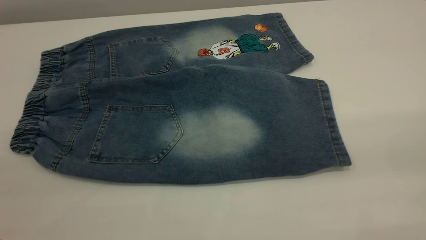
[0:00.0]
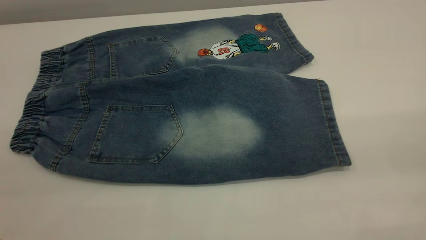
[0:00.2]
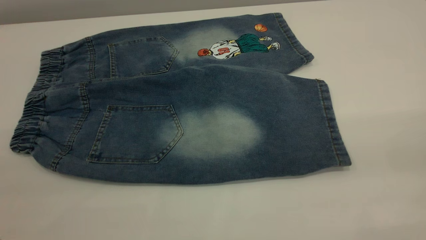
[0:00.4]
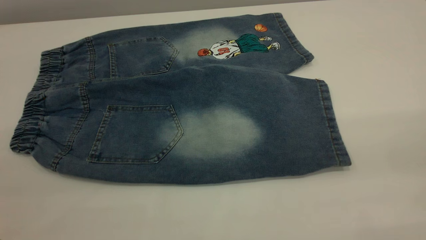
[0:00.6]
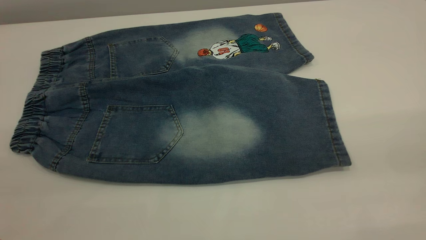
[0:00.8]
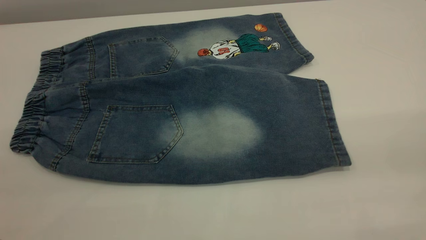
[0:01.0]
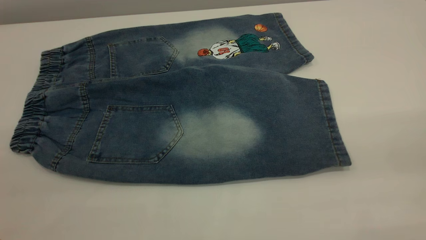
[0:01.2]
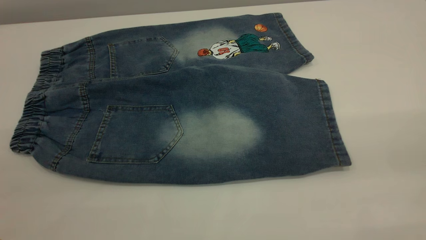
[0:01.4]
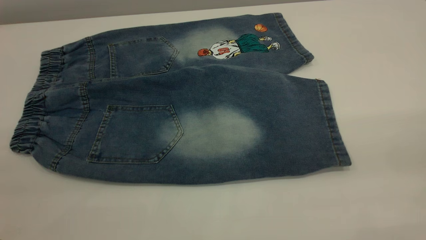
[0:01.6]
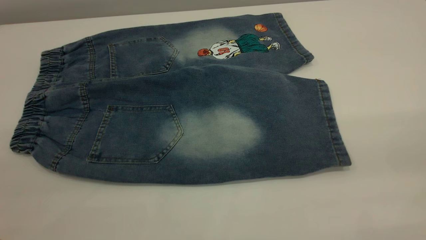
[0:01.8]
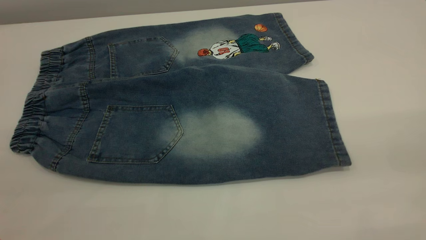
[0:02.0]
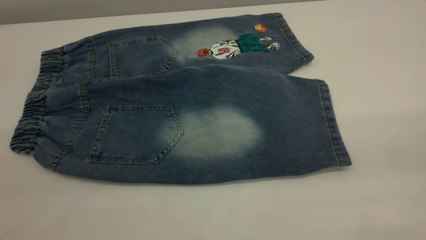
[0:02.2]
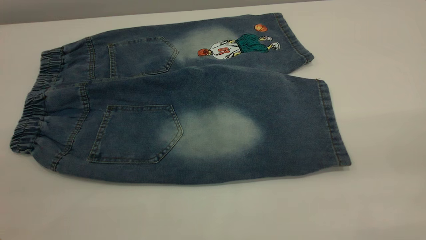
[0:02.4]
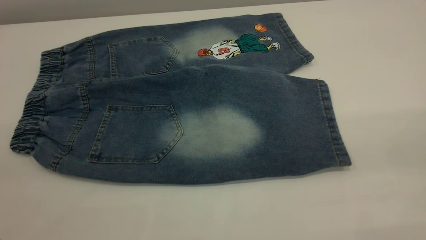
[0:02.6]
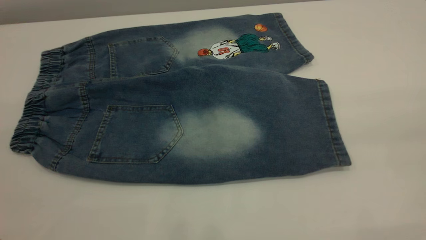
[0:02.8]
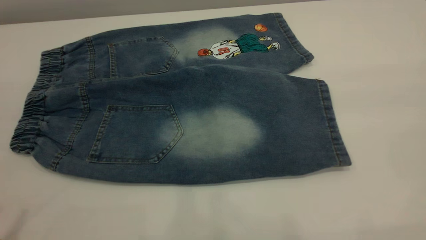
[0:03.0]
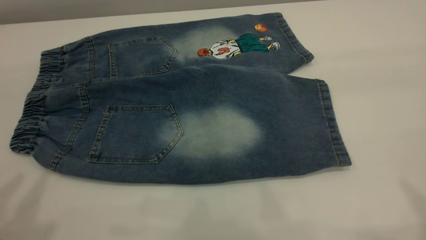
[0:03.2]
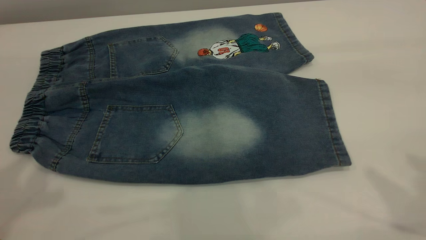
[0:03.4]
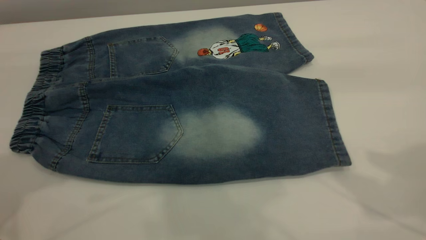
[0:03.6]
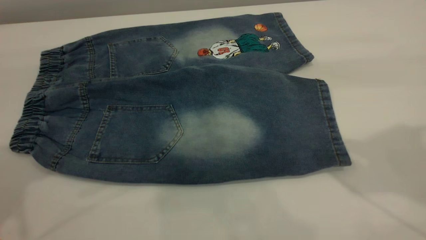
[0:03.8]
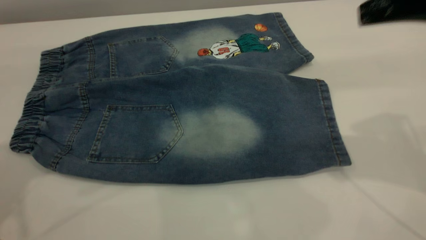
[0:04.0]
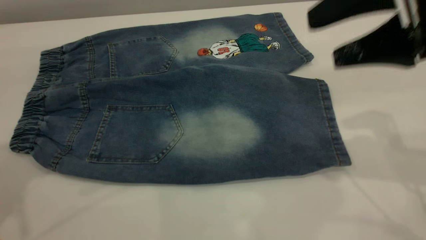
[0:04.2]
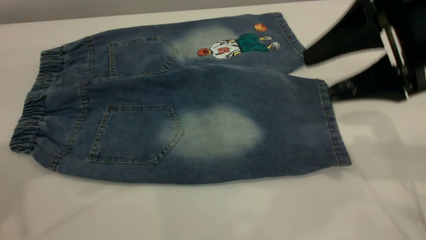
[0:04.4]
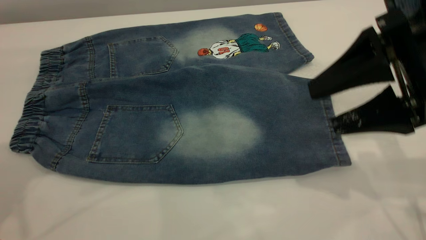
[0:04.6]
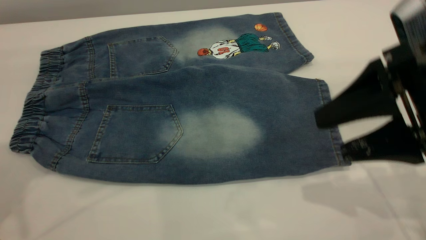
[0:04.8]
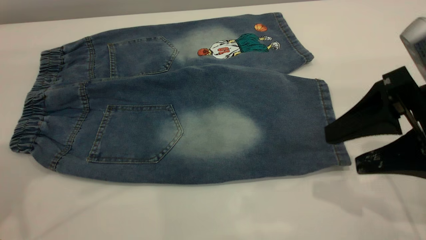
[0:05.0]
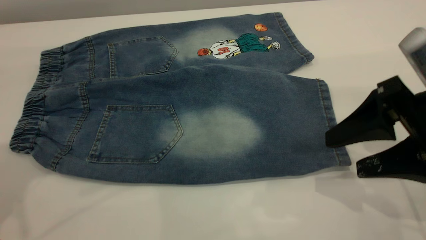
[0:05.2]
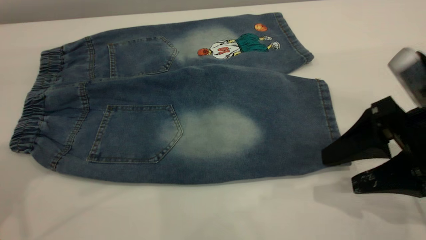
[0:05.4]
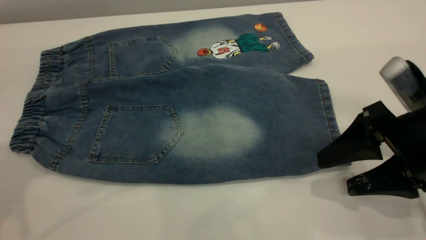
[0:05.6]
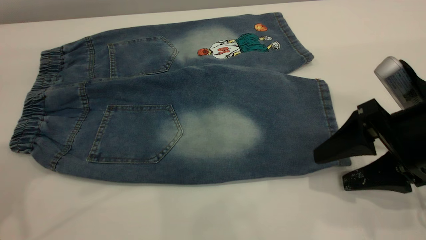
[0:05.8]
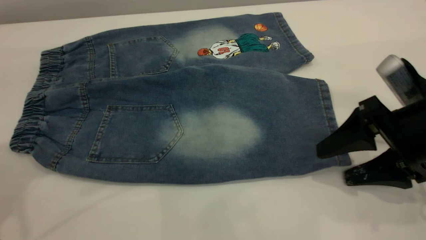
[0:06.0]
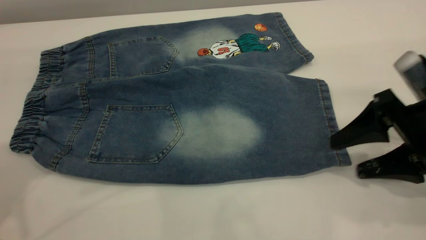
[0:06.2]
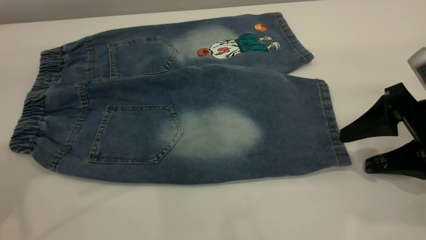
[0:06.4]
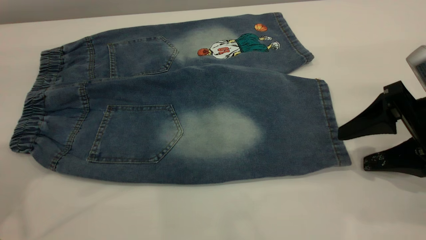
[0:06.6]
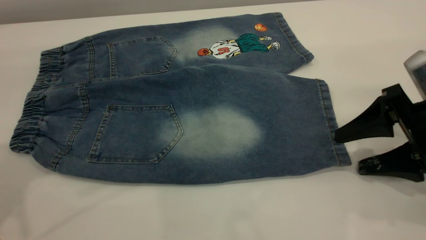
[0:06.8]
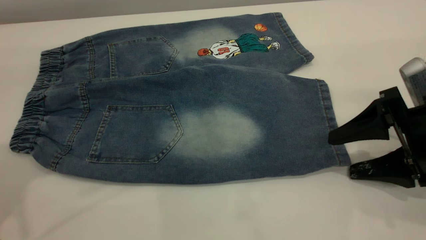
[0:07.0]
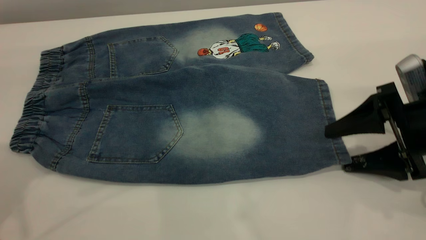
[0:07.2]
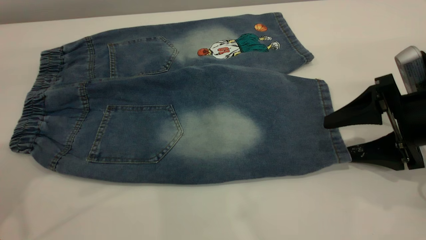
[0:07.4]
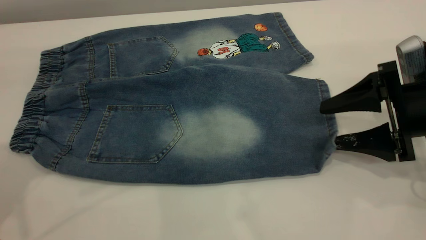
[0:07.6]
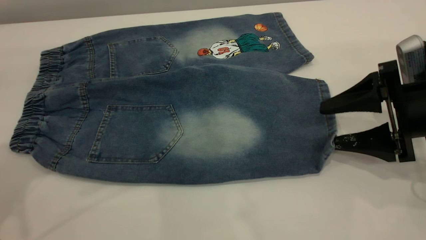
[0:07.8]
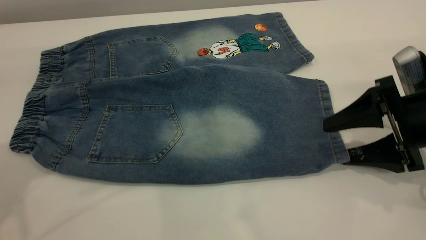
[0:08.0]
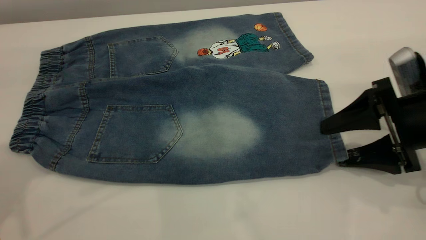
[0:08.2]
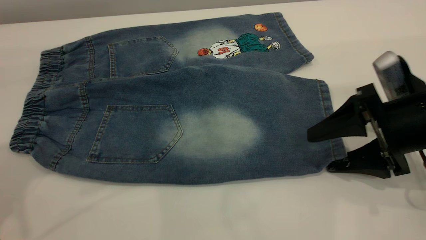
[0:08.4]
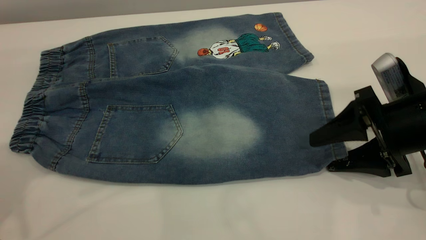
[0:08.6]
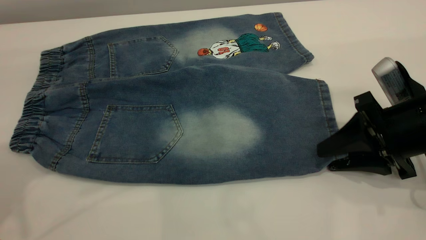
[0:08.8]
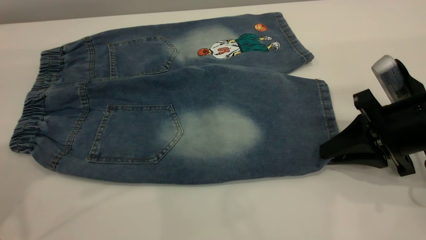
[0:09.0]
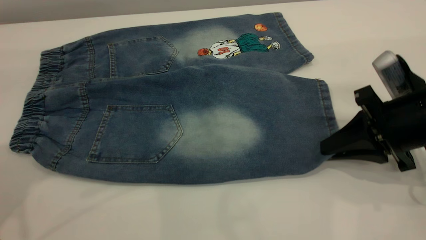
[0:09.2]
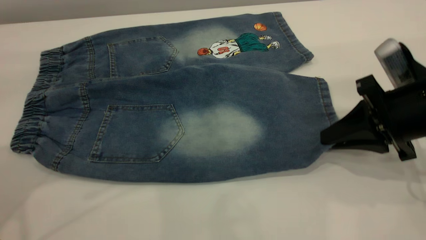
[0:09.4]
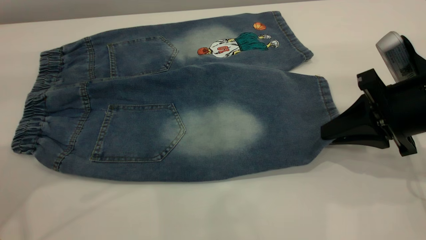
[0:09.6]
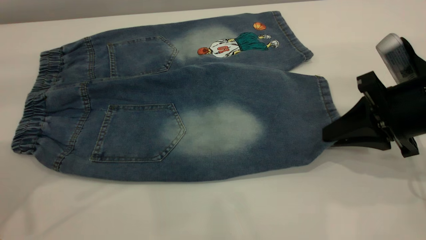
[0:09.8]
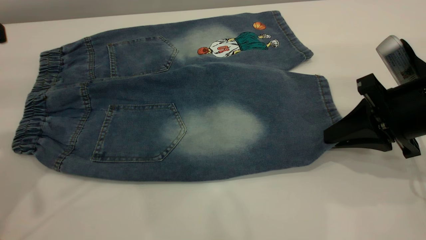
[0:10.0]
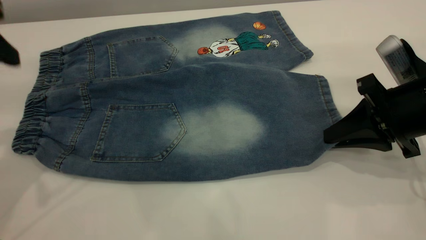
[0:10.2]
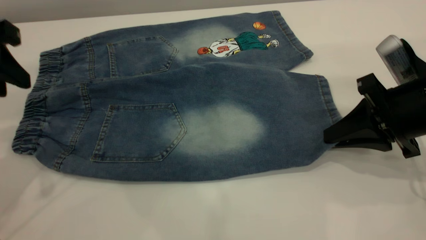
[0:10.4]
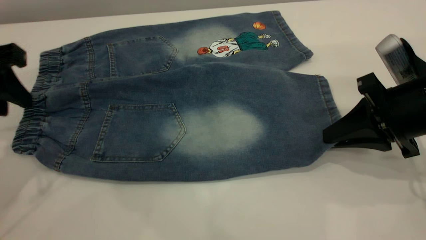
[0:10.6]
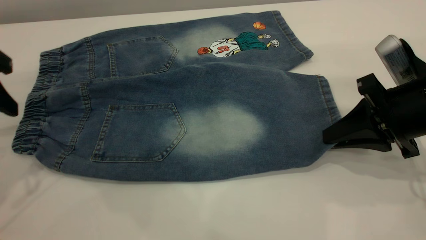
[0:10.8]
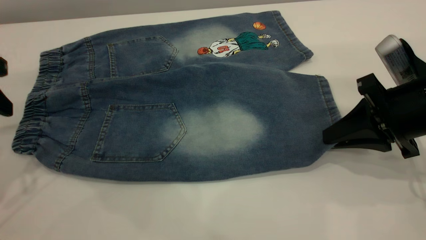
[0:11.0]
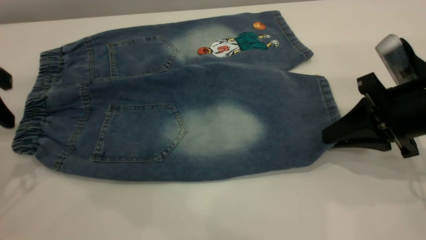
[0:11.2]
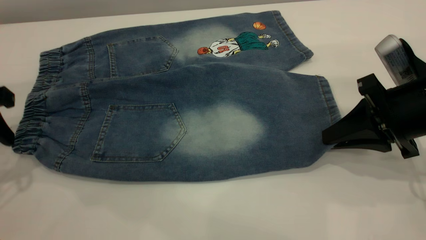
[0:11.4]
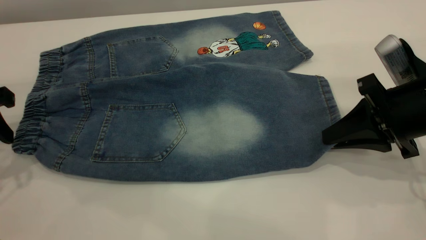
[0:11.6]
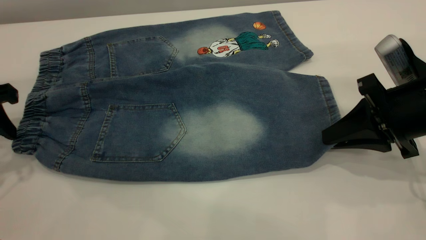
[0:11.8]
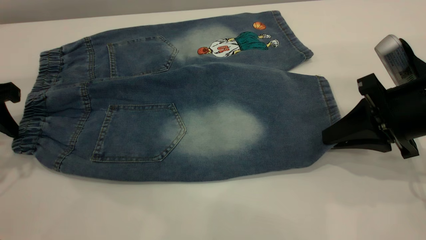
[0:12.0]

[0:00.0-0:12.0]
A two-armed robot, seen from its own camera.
0:00.0 to 0:01.6: The two grippers keep their place.
0:03.0 to 0:04.4: The right gripper goes about 25 cm downward and forward.
0:04.4 to 0:06.0: The right gripper goes some 10 cm downward.
0:06.0 to 0:07.6: The grippers make only small movements.
0:07.6 to 0:09.0: The right gripper closes.
0:09.0 to 0:10.4: The left gripper heads downward, covering about 10 cm.
0:10.4 to 0:12.0: The left gripper is displaced downward and to the left by roughly 10 cm.

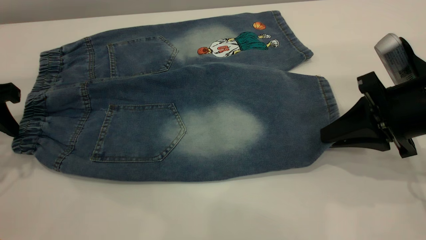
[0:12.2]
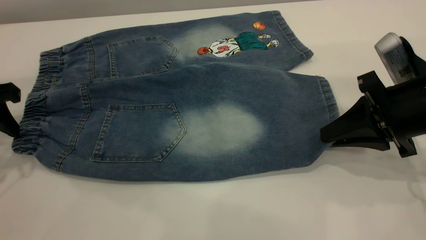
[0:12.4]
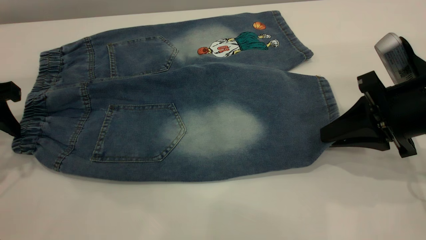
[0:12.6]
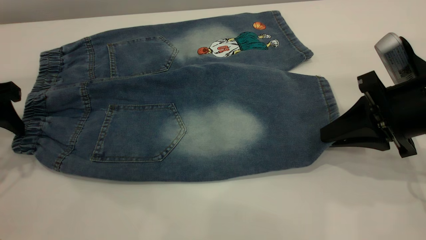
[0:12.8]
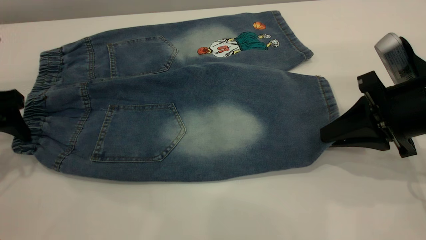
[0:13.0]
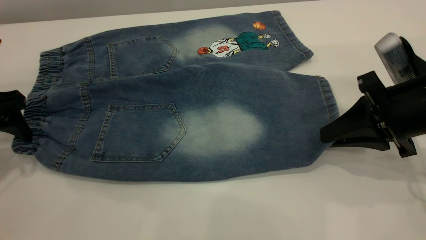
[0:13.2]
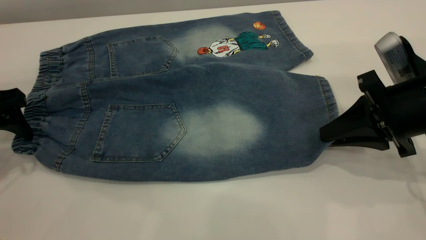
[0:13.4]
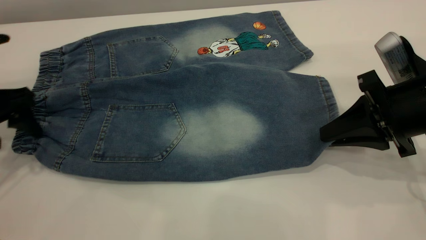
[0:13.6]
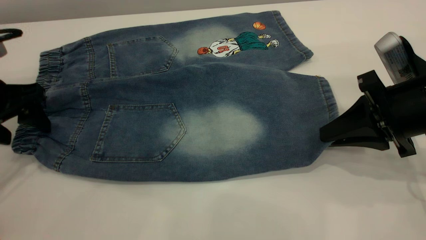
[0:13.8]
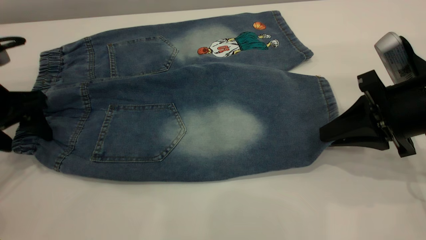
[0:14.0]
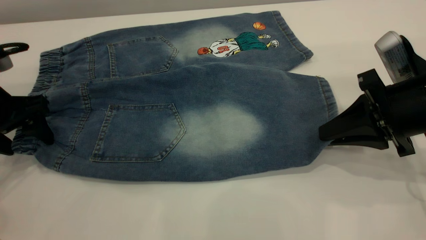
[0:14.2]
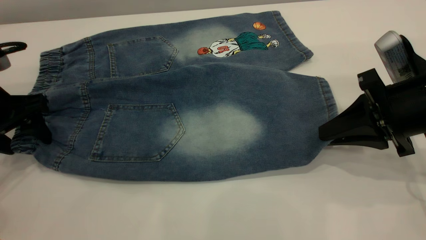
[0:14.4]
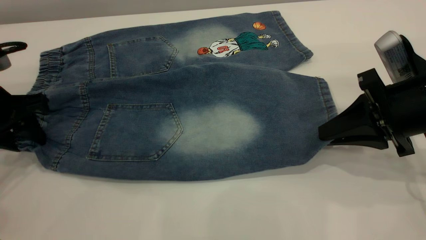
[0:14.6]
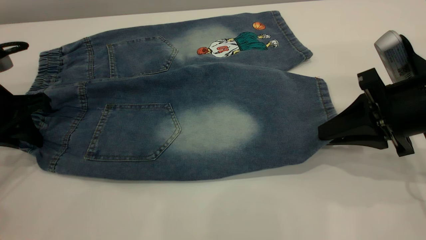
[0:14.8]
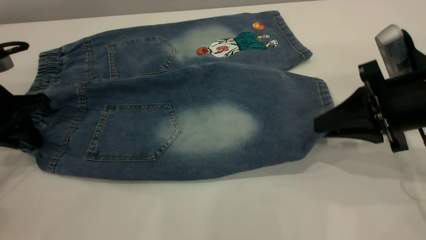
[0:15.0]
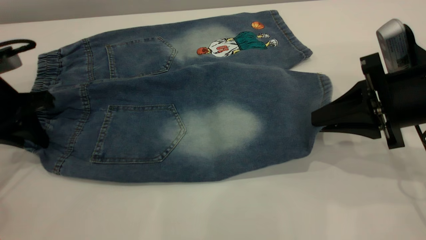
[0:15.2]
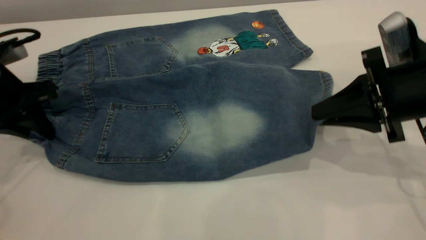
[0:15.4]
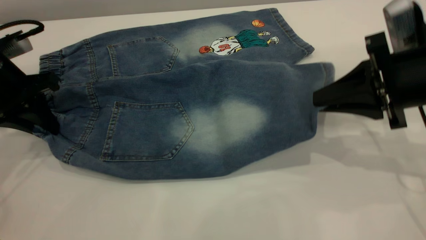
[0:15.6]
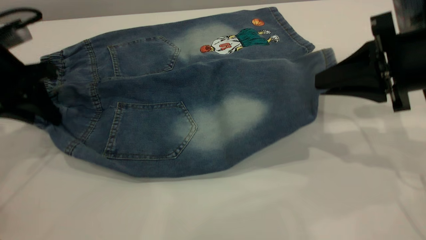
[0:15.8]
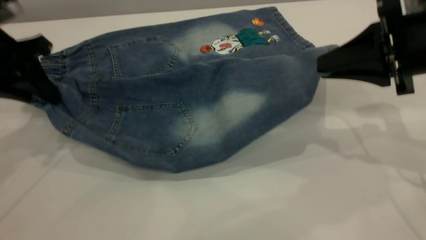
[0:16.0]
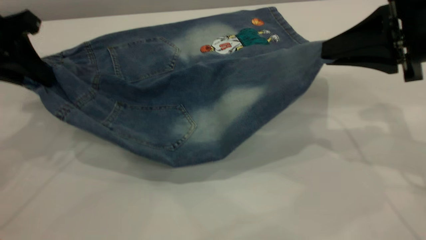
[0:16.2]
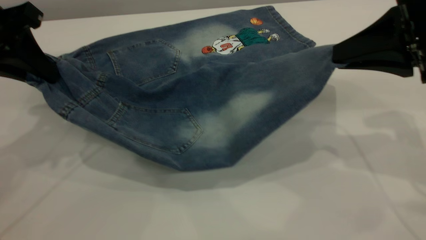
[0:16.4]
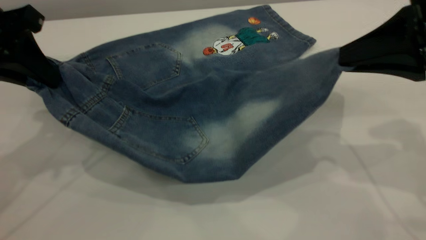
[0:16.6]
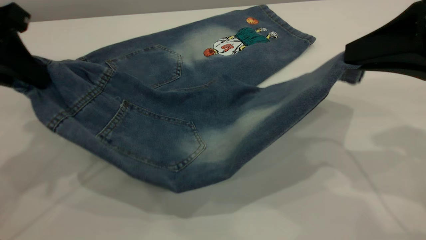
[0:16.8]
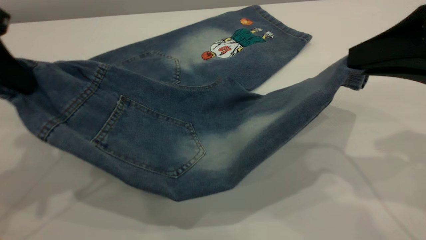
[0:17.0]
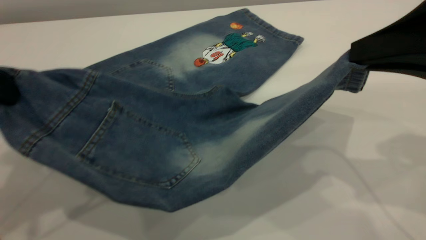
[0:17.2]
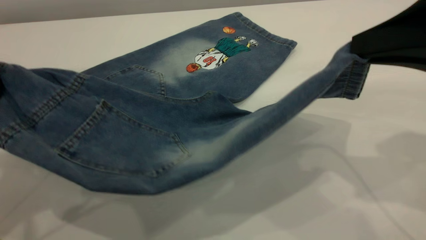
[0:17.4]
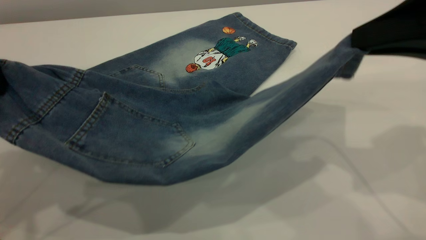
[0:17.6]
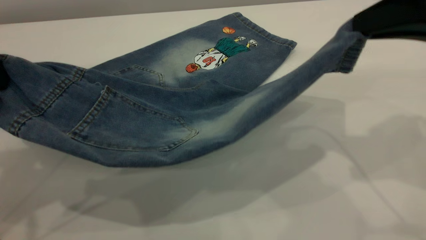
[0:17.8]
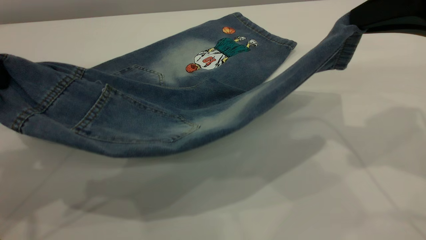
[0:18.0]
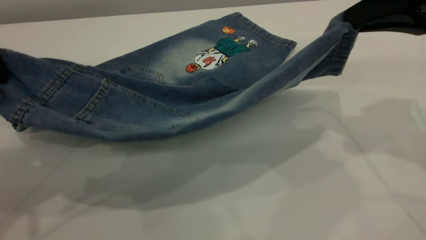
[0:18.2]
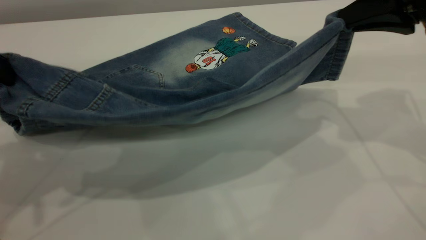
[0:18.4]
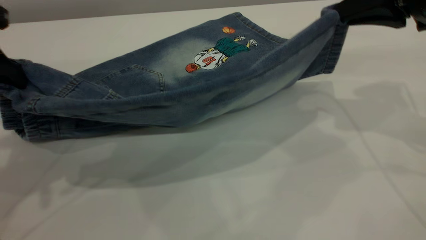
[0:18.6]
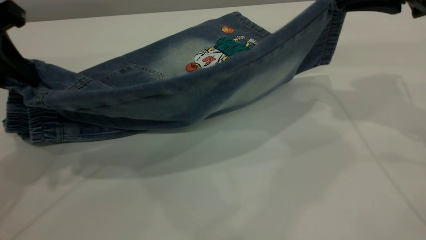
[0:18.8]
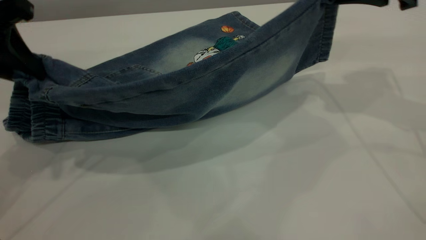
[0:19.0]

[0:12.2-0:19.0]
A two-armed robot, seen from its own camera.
0:12.2 to 0:13.6: The left gripper opens up.
0:13.6 to 0:15.0: The left gripper closes up.
0:15.0 to 0:16.2: Both grippers travel together upward, about 10 cm.
0:16.2 to 0:17.6: The left gripper shifts roughly 10 cm backward. Meanwhile the right gripper changes place by approximately 5 cm.
0:17.6 to 0:19.0: The left gripper is displaced forward by approximately 10 cm; the right gripper is displaced forward by about 15 cm.
